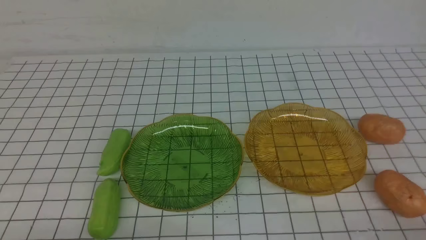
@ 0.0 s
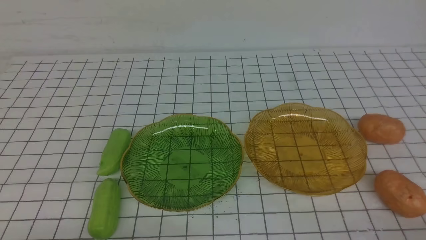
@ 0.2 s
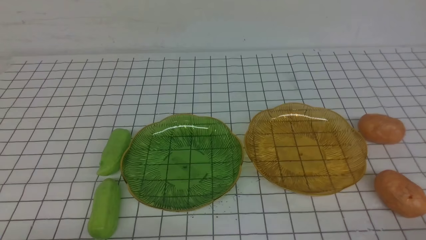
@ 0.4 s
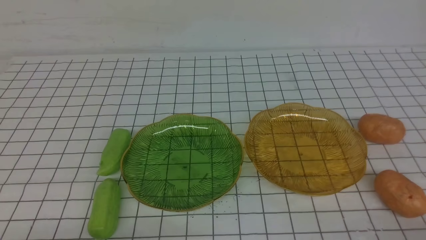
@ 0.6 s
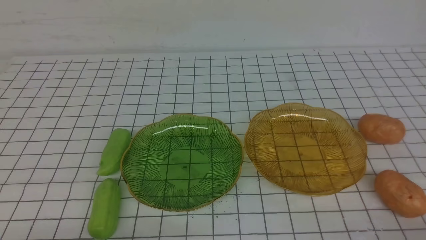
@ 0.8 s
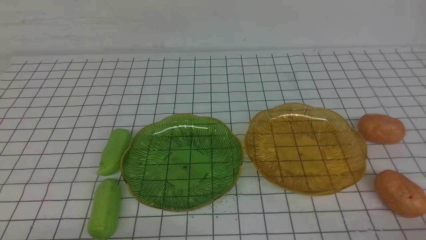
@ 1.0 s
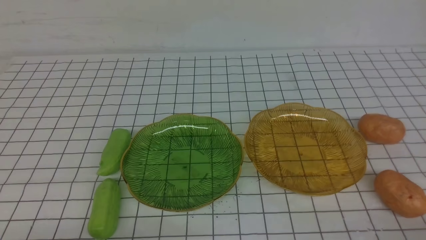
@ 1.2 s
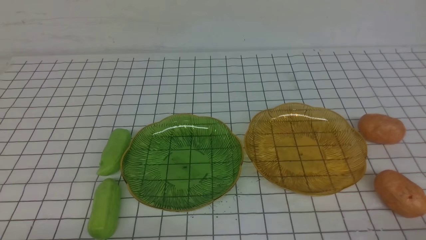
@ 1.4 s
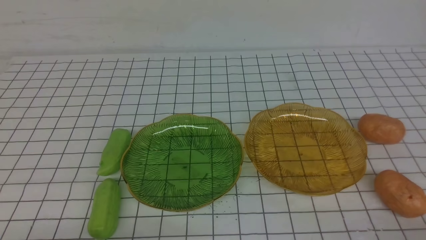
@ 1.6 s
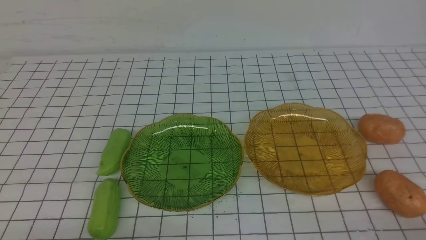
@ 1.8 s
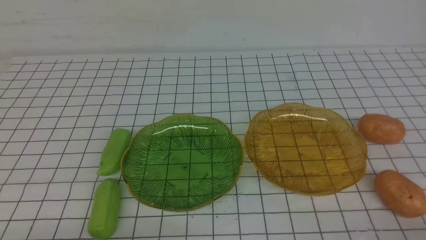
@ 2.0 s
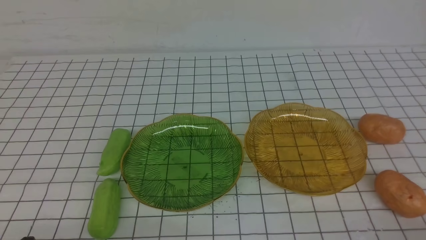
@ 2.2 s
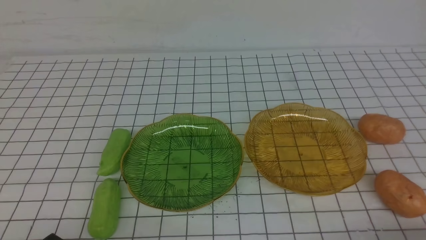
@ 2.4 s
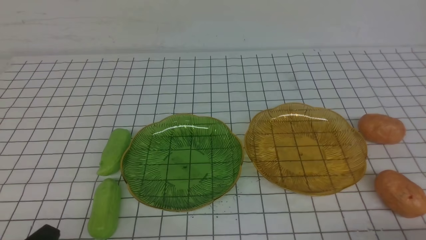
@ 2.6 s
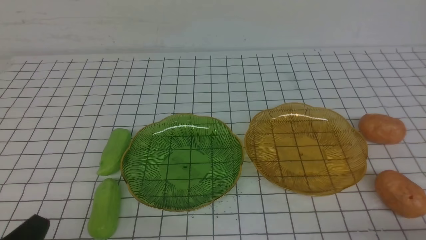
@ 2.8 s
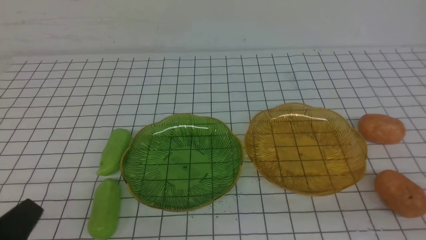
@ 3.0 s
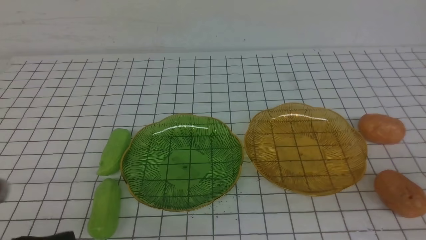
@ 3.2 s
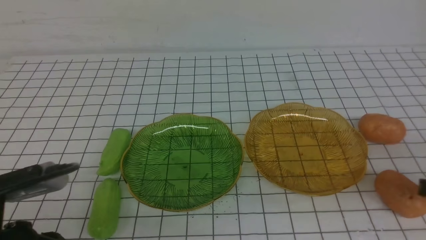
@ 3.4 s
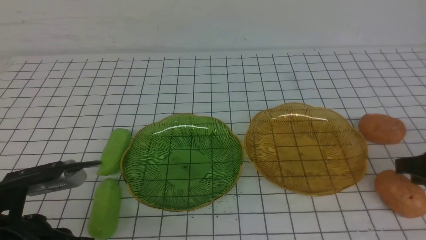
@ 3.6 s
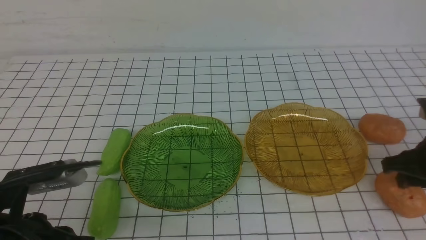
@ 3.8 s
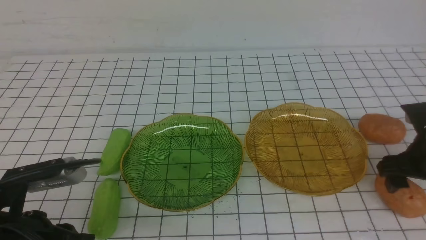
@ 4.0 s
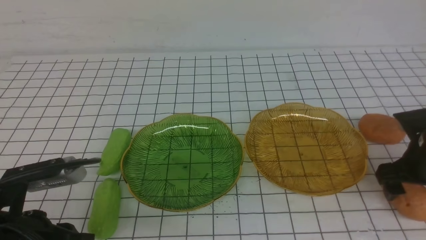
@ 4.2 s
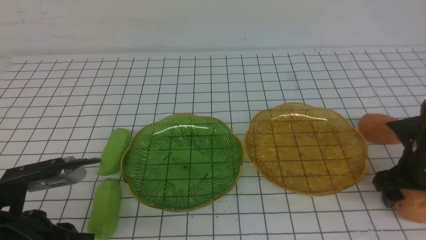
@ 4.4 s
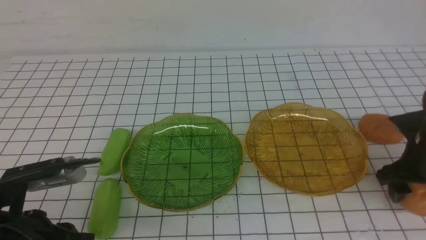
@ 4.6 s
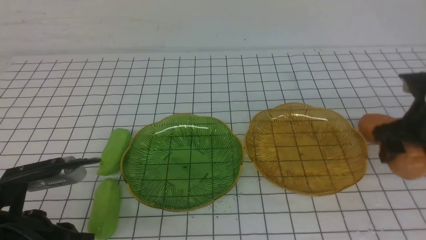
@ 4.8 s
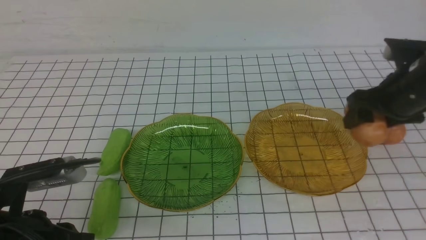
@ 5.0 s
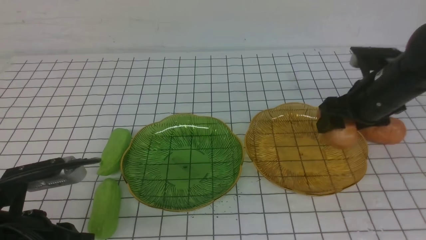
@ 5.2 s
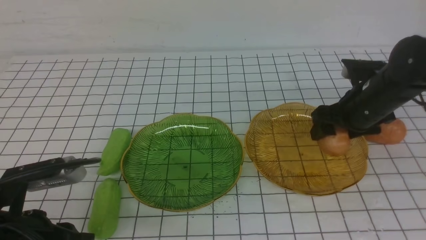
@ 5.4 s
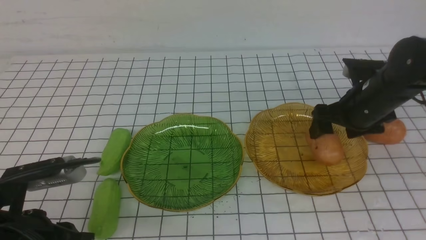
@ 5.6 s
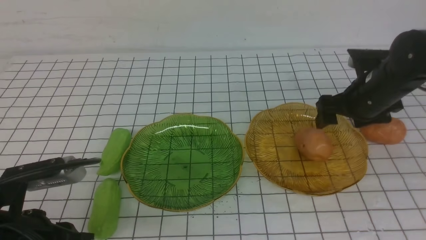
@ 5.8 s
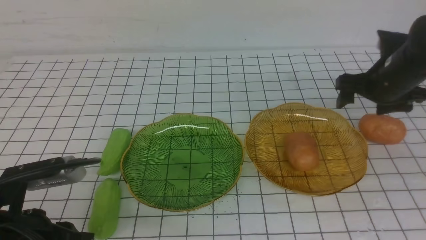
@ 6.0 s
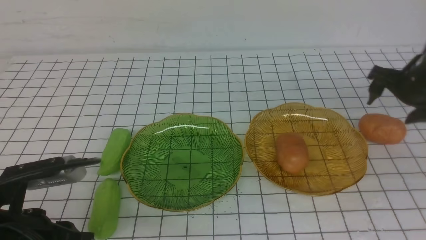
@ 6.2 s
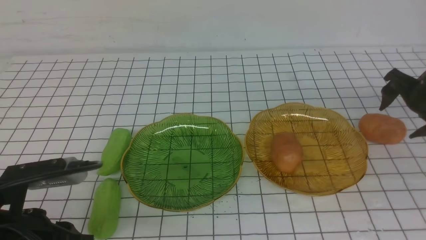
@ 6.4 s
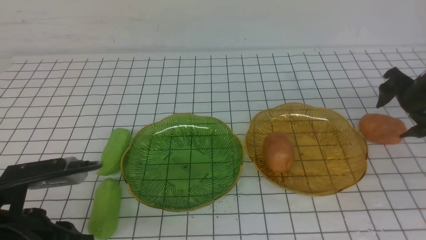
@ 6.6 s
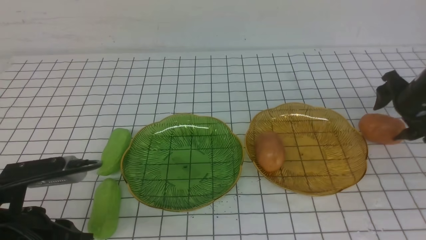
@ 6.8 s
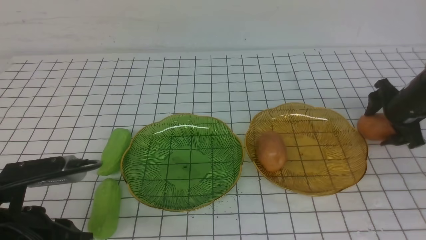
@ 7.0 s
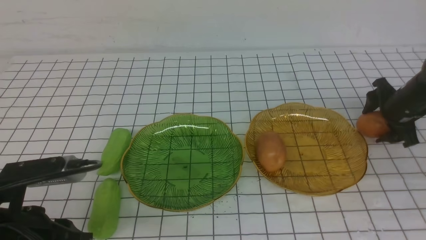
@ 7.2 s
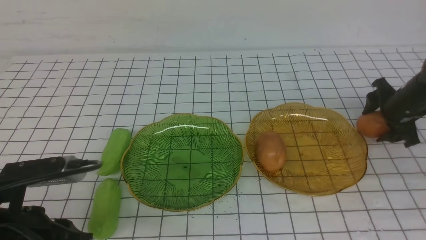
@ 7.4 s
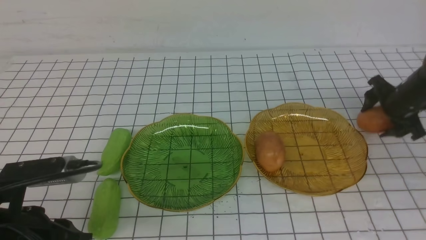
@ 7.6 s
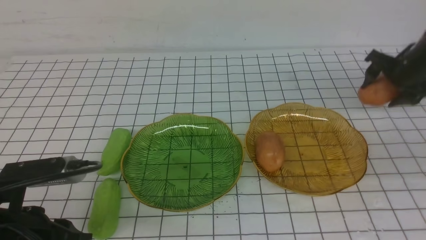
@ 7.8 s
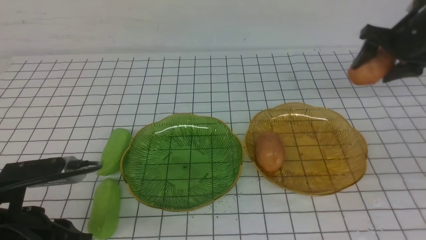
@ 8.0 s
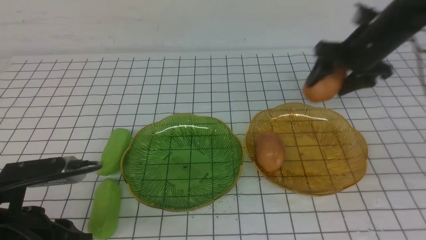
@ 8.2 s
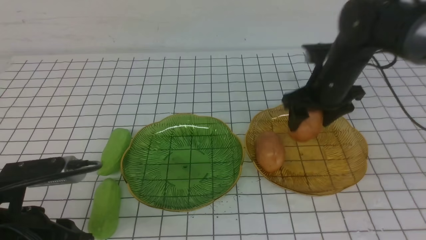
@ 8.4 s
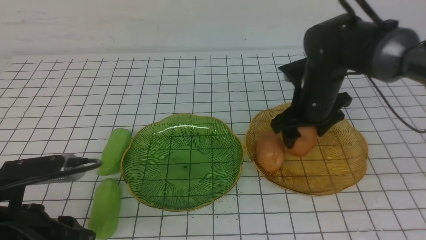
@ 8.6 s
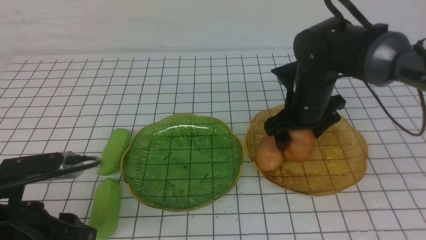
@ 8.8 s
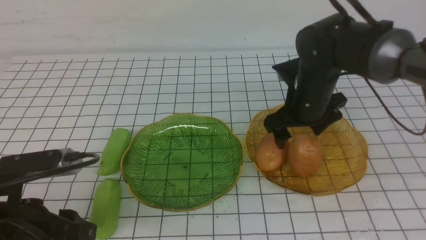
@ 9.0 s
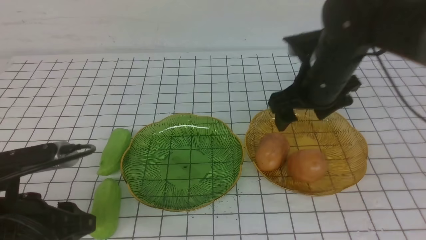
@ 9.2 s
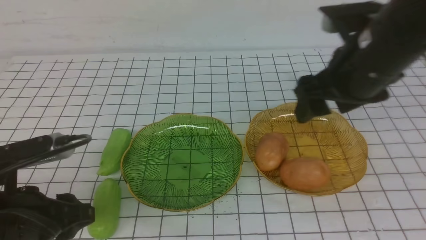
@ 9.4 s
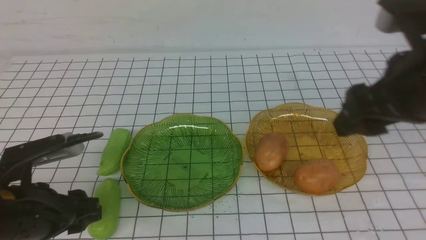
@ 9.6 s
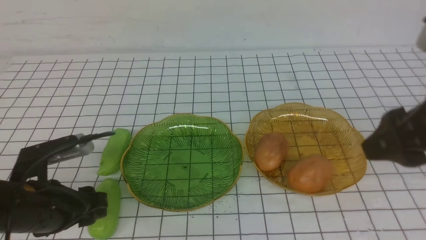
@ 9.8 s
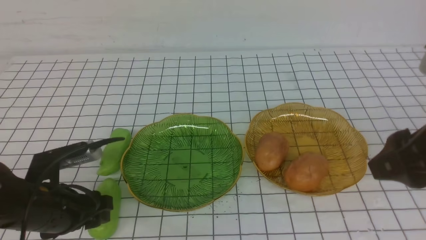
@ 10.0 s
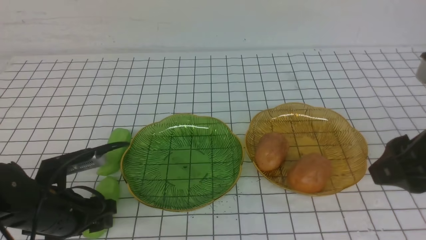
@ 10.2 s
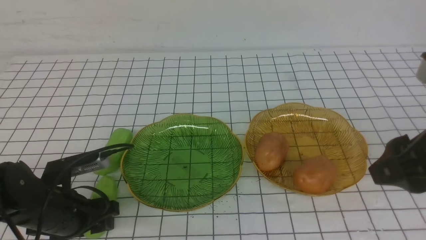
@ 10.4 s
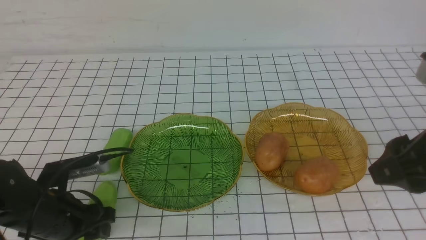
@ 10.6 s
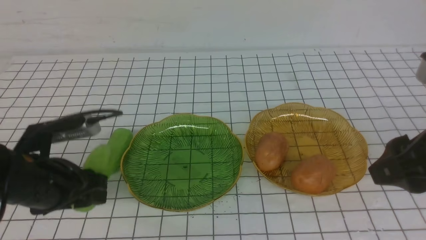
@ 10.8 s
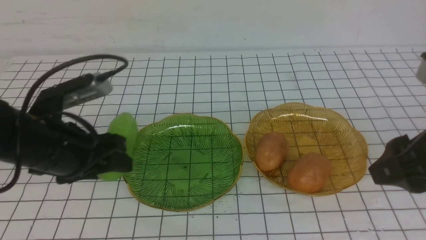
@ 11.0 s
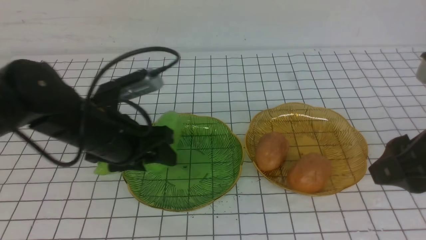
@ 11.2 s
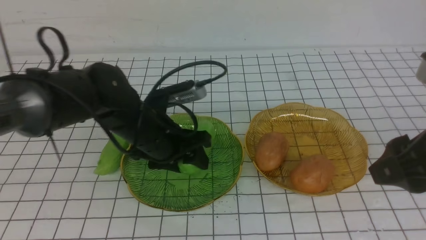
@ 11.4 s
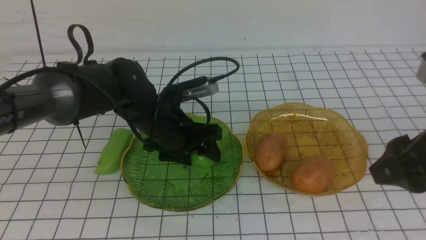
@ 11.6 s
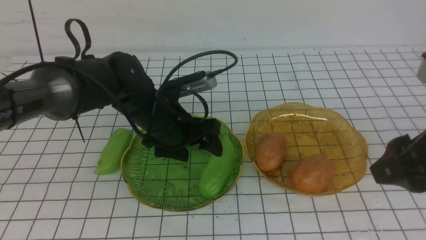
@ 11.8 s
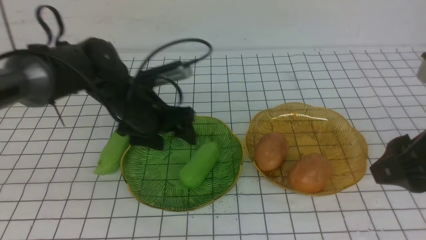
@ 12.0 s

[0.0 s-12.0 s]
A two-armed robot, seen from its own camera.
Step, 0.0 to 5.6 s: Grab a potato with your right arm and put it on the right plate.
Step, 6.0 to 9.0 s: Grab a potato with your right arm and put it on the right plate.
1.6 to 3.0 s: The left gripper is displaced upward by approximately 5 cm.
3.0 to 4.4 s: The right gripper moves forward, about 25 cm, and opens, while the left gripper moves forward, about 10 cm.
4.4 to 6.0 s: The right gripper travels forward and upward by roughly 10 cm.
6.0 to 7.6 s: The right gripper shifts roughly 10 cm to the right, downward and forward.
7.6 to 9.0 s: The right gripper travels to the left by about 20 cm.
9.0 to 10.4 s: The right gripper is displaced backward, upward and to the right by approximately 25 cm. Meanwhile the left gripper travels downward and forward by about 10 cm.
10.4 to 12.0 s: The left gripper heads forward, to the right and upward, covering about 20 cm.

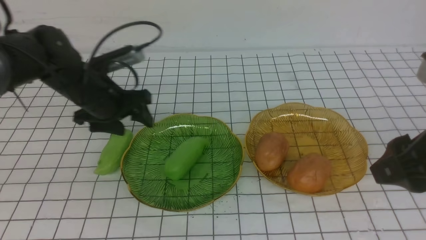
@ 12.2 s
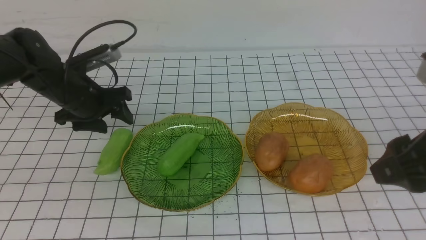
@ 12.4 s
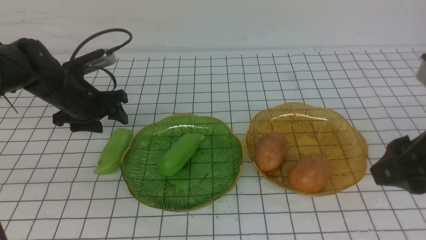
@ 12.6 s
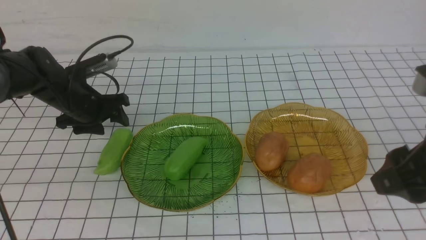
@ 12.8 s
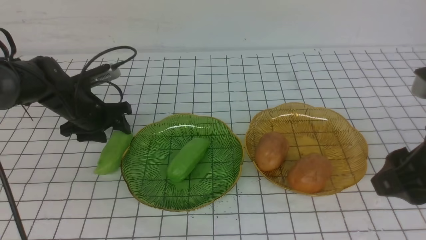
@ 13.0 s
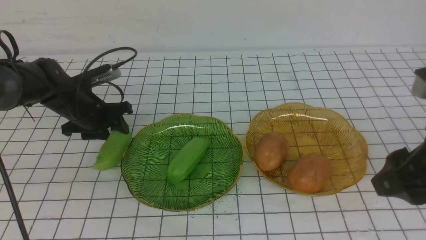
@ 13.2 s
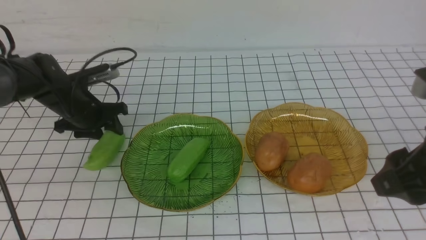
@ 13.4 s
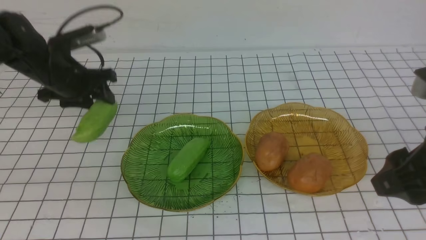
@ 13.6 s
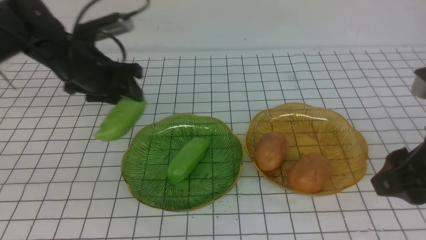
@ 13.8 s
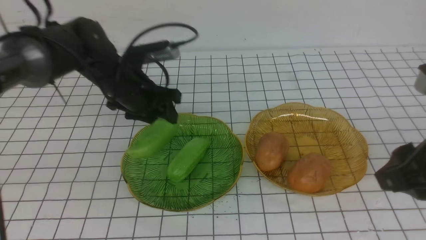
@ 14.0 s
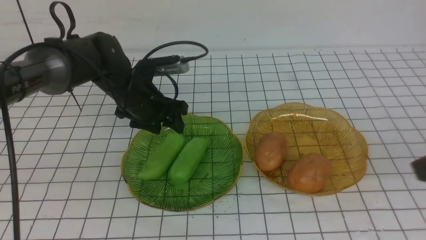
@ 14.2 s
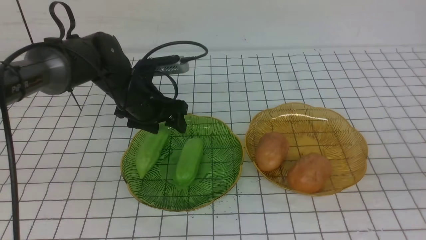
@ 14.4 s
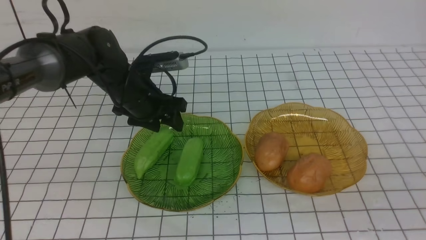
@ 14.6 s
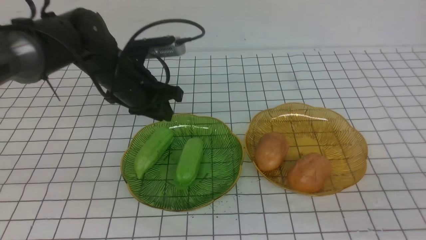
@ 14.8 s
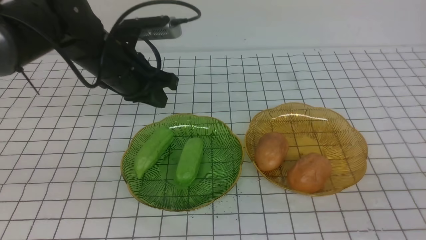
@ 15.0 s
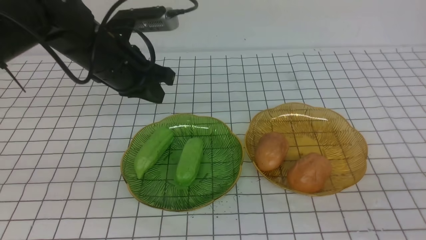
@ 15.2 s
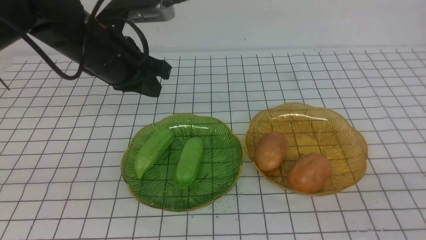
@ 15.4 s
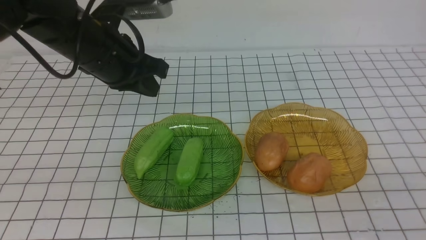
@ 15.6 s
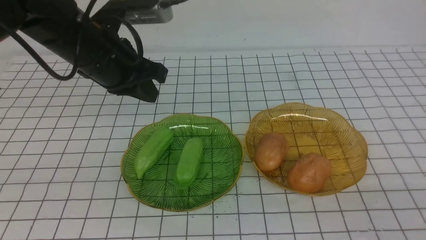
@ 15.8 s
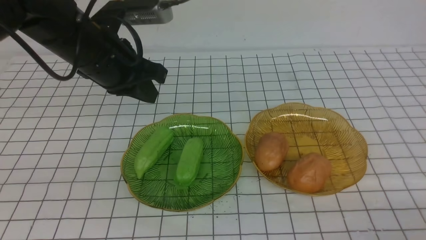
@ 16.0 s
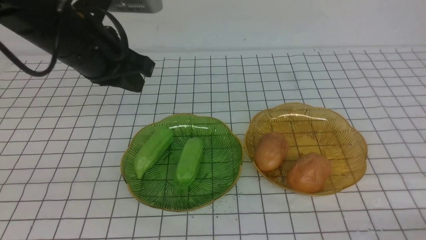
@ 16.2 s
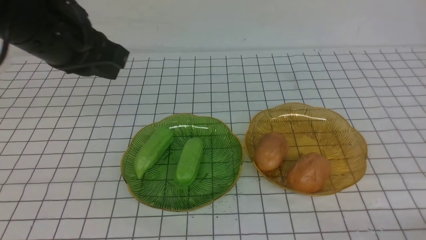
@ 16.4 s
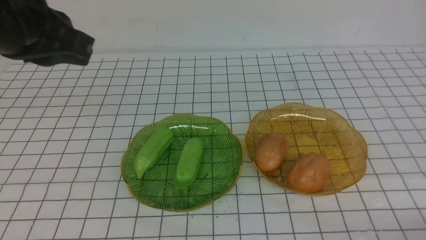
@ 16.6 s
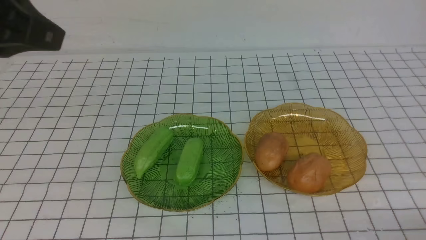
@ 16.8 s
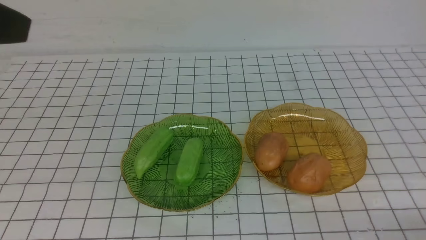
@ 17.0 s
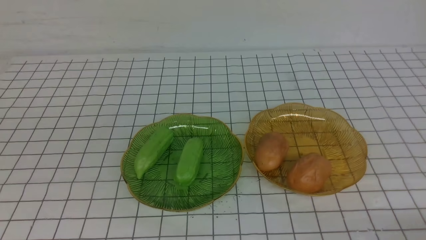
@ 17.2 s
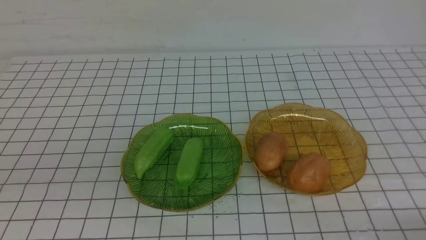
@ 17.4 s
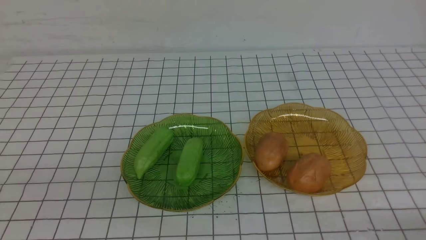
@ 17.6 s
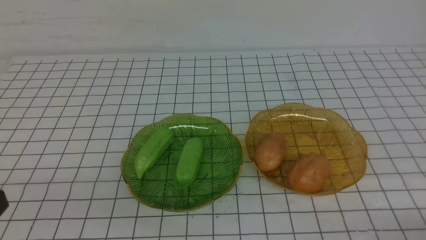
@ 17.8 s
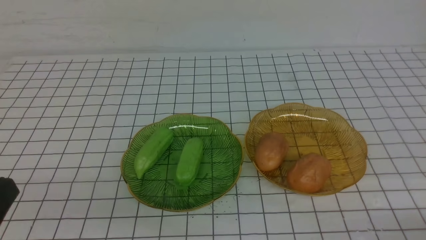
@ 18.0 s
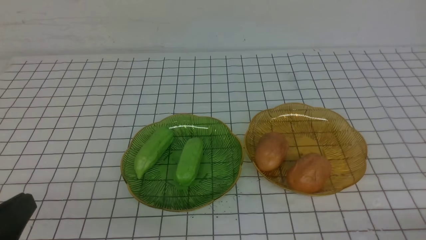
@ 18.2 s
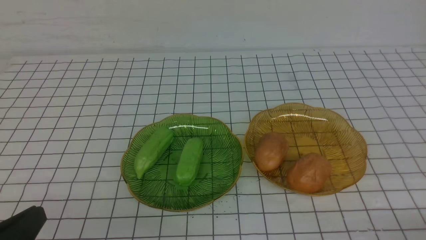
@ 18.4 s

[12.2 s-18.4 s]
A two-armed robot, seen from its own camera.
Step, 12.2 to 14.4 s: use the left arm to grab a chayote and put it into the left plate.
12.2 to 13.8 s: The left gripper moves about 5 cm downward and comes back, and closes up.
13.8 to 15.4 s: The right gripper is displaced backward, to the right and downward by about 15 cm, and closes its fingers. The left gripper shifts about 10 cm upward, to the right and backward, and closes.
15.4 to 16.8 s: The right gripper heads downward, covering about 10 cm; the left gripper goes roughly 20 cm backward and upward.
16.8 to 18.4 s: The left gripper shifts approximately 25 cm downward and backward.
